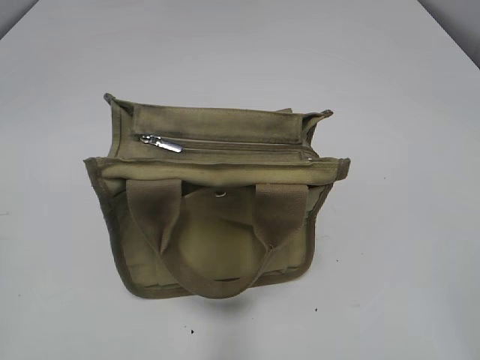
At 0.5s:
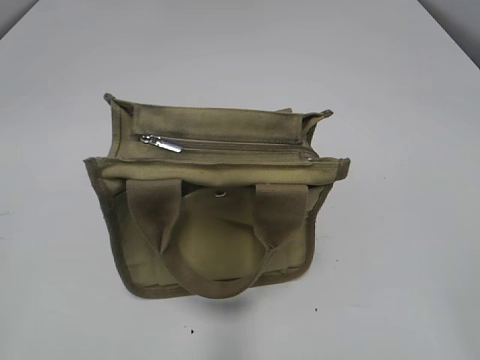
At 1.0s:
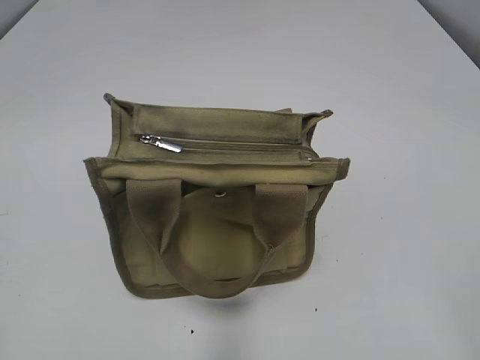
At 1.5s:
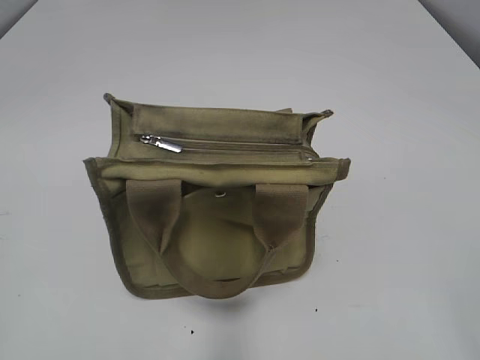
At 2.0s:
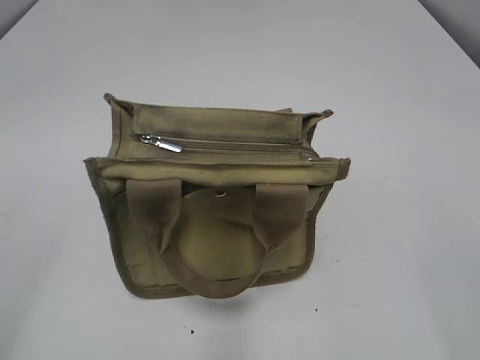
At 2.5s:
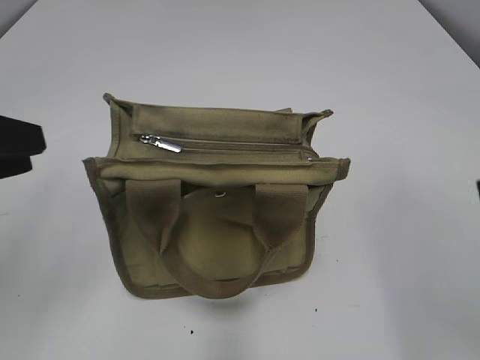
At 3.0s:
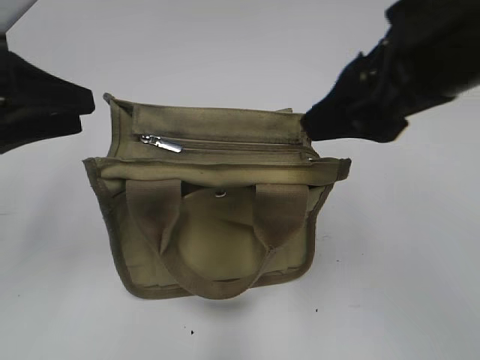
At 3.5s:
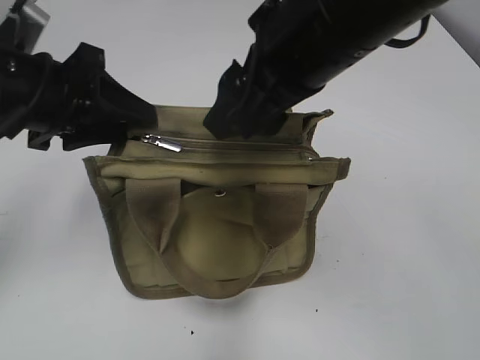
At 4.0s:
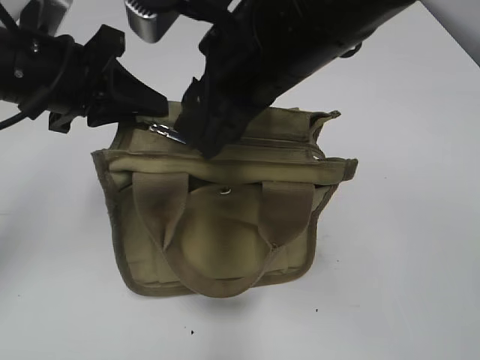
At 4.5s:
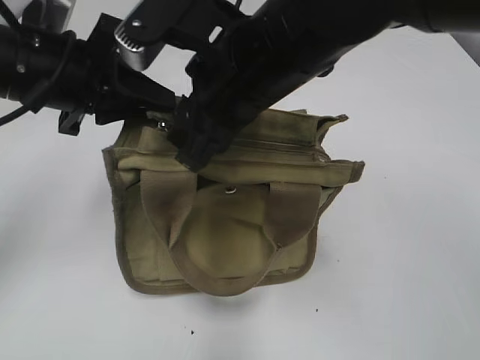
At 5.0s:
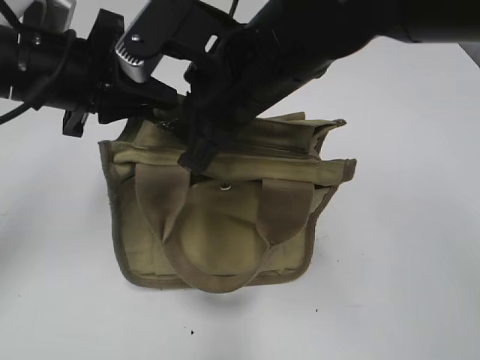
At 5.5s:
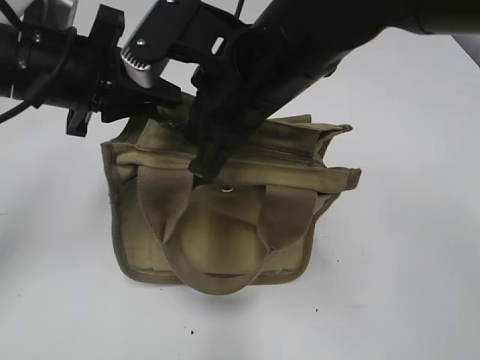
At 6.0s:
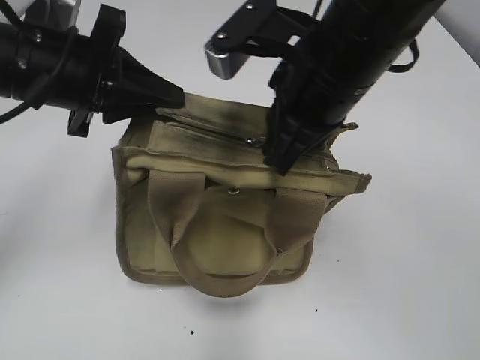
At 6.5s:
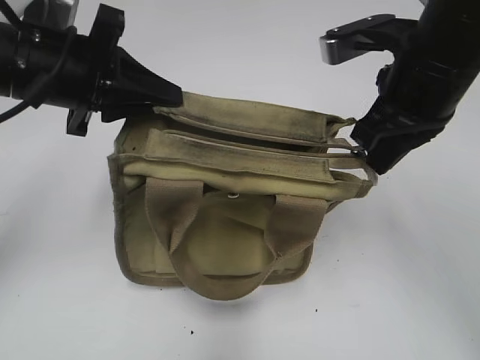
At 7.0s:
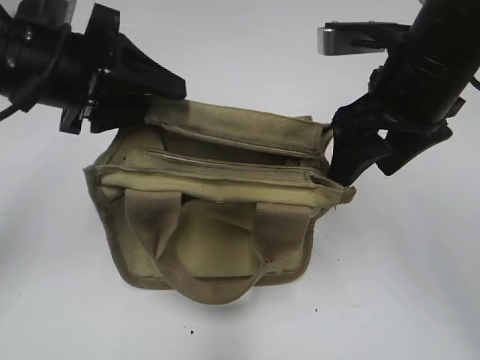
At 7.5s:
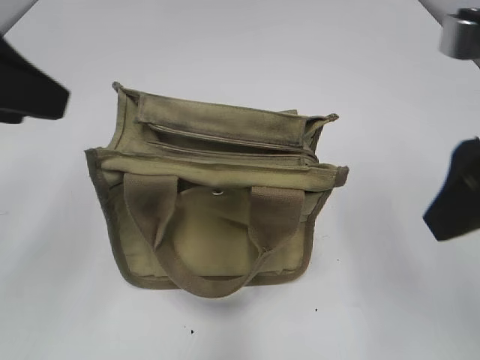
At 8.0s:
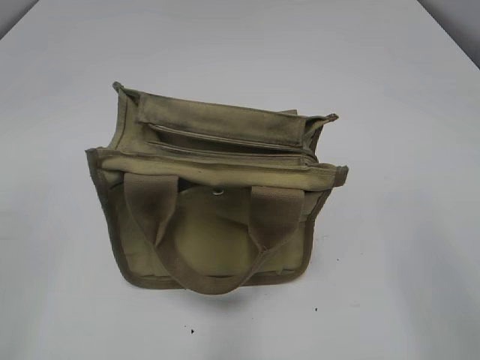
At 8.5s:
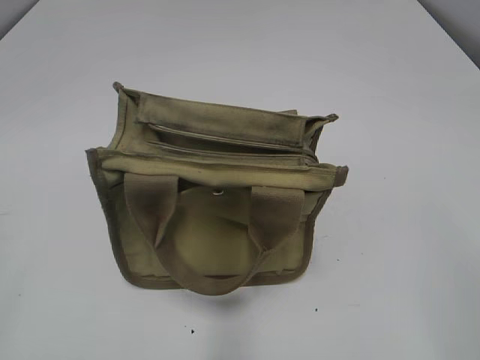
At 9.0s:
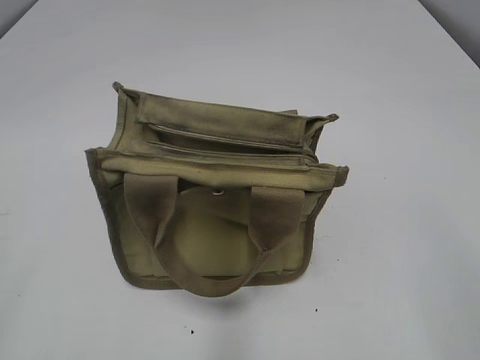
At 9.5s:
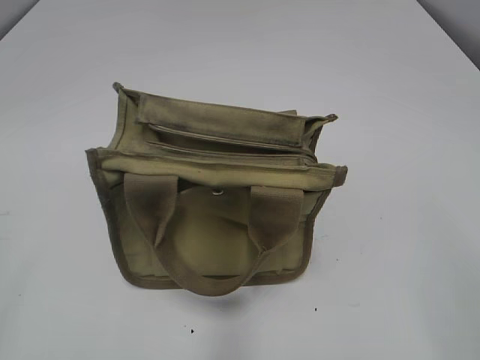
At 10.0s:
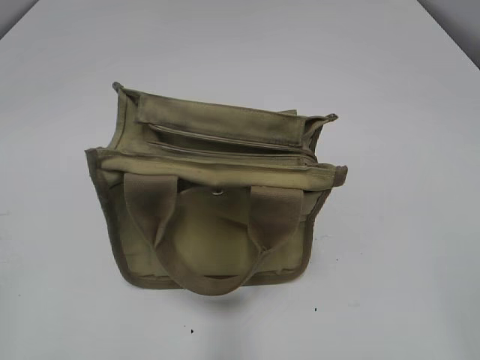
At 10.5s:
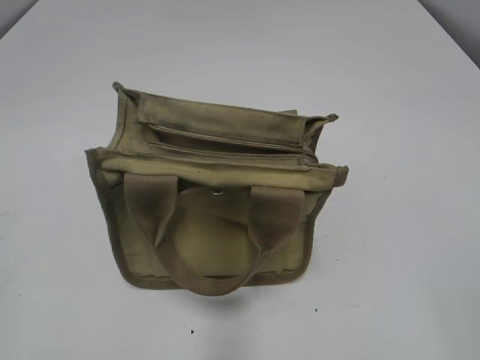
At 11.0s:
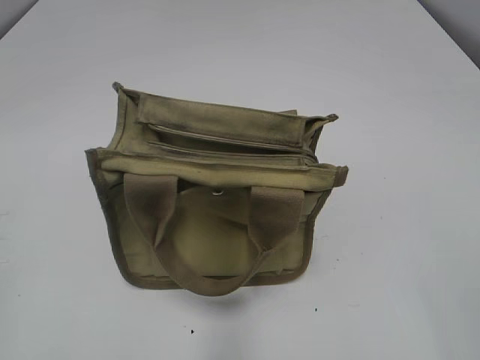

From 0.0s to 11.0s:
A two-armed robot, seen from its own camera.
Step, from 0.0s to 6.5s: Pull open the zipper with your right hand.
From 2.0s to 3.5s: The right gripper travels forward and to the left by roughly 30 cm. The left gripper travels forward and to the right by some 25 cm.
From 3.5s to 5.5s: The left gripper closes up, while the right gripper heads downward, covering approximately 5 cm, and closes its fingers.
From 5.5s to 7.5s: The right gripper is displaced to the right and backward by about 20 cm, and opens. The left gripper is displaced backward, upward and to the left by some 15 cm, and opens its fingers.
From 7.5s to 9.0s: The right gripper heads backward and to the right, covering approximately 20 cm; the left gripper is displaced backward and to the left by some 20 cm.

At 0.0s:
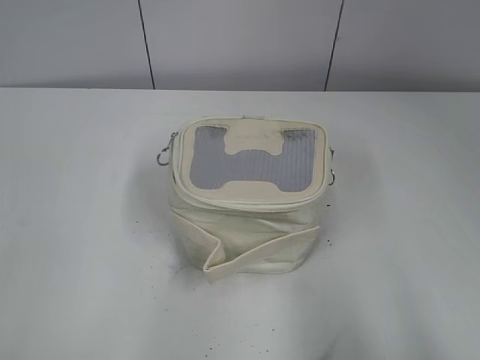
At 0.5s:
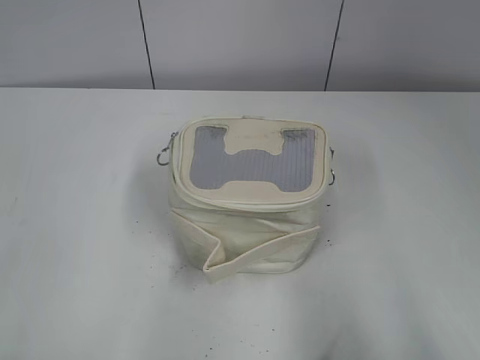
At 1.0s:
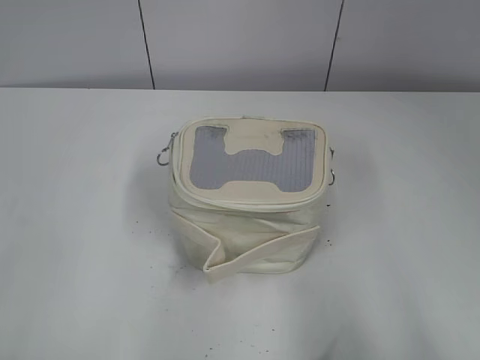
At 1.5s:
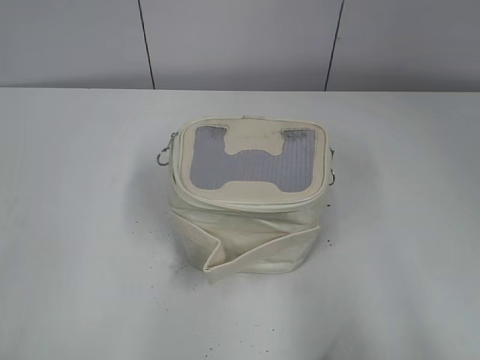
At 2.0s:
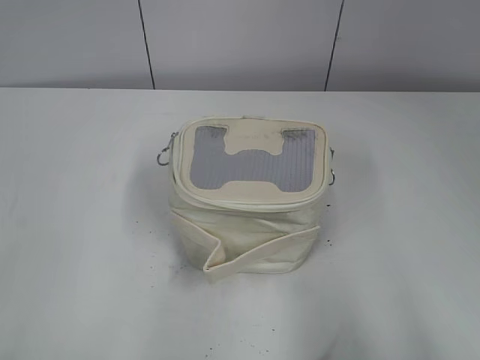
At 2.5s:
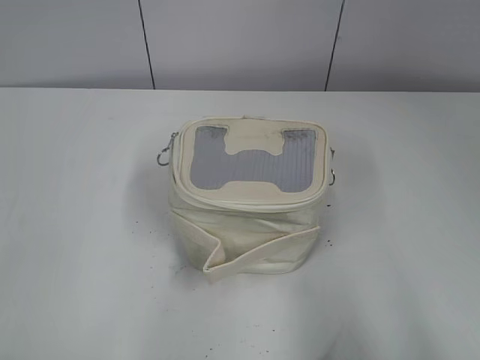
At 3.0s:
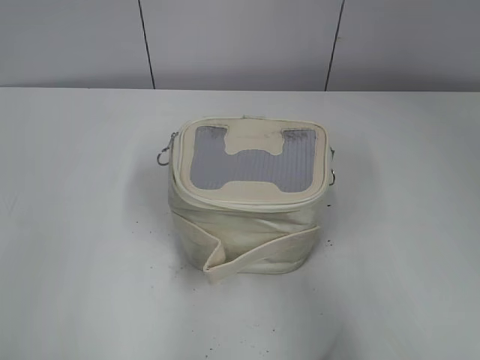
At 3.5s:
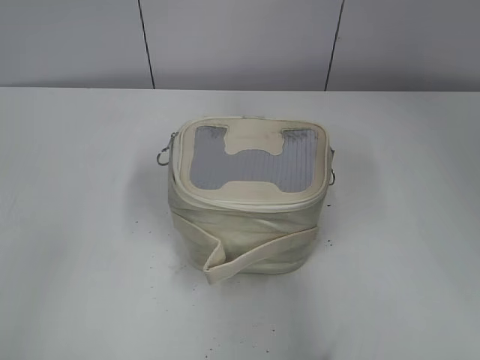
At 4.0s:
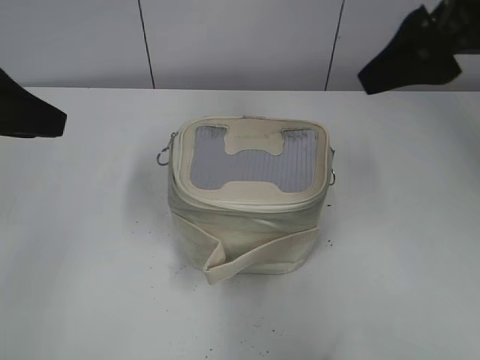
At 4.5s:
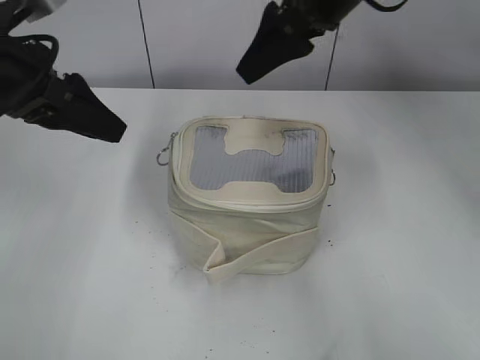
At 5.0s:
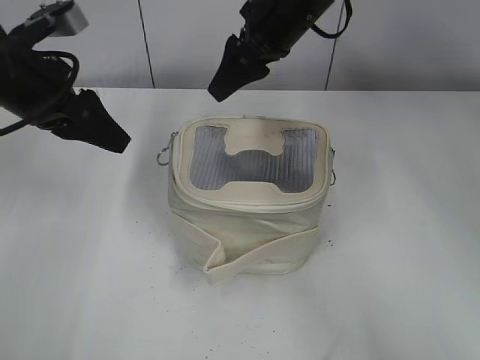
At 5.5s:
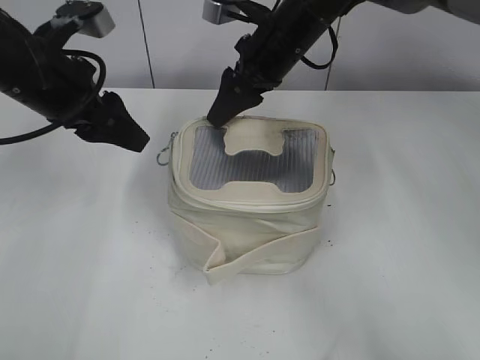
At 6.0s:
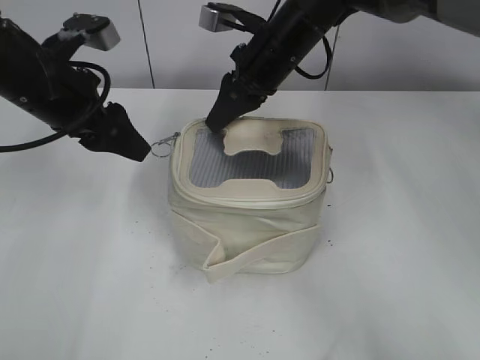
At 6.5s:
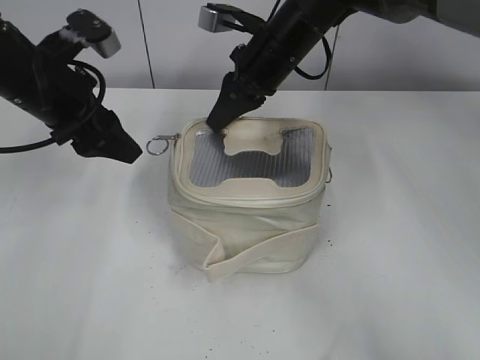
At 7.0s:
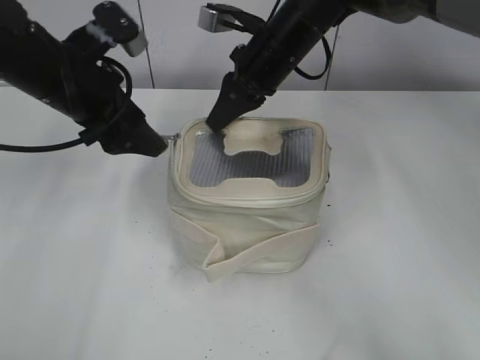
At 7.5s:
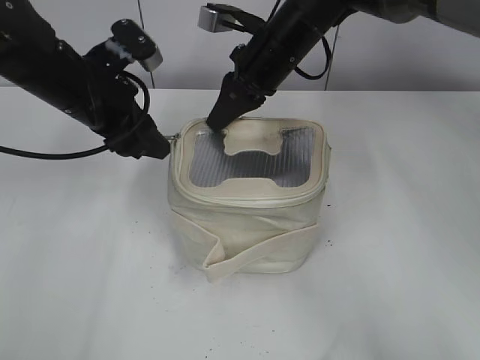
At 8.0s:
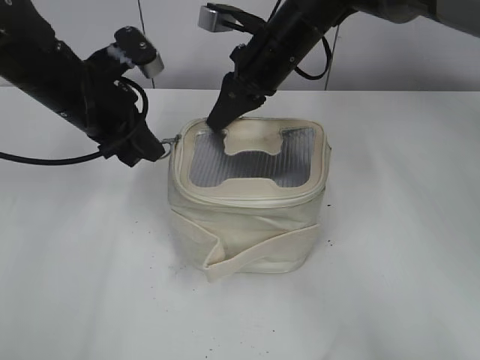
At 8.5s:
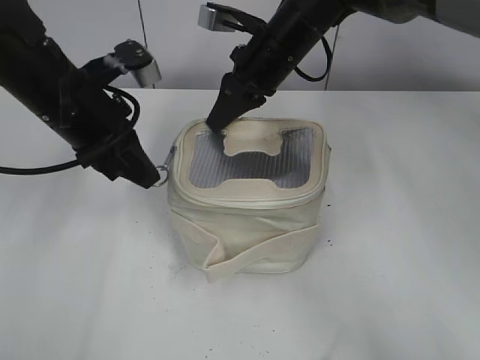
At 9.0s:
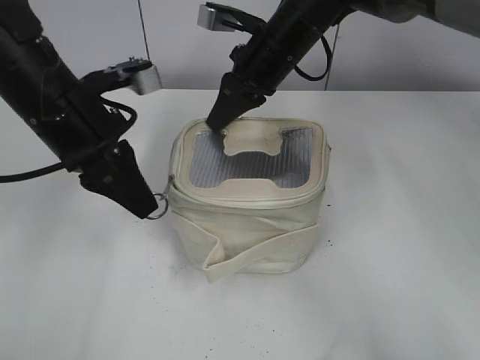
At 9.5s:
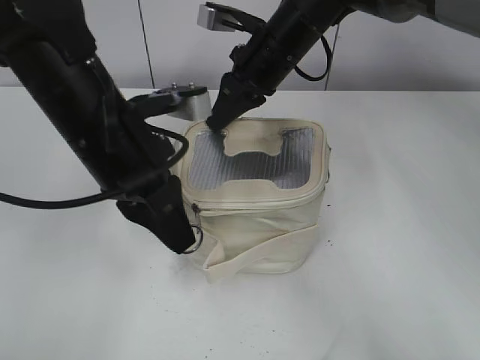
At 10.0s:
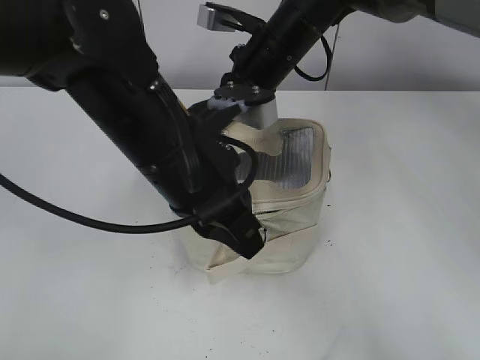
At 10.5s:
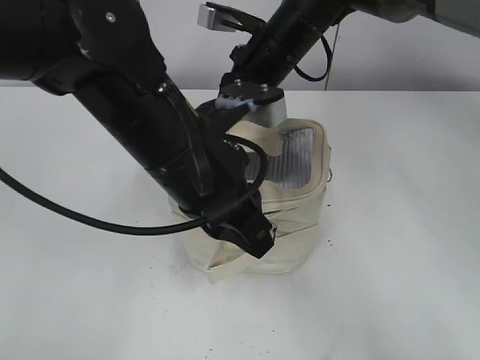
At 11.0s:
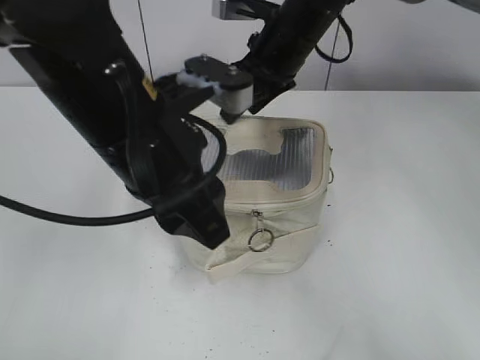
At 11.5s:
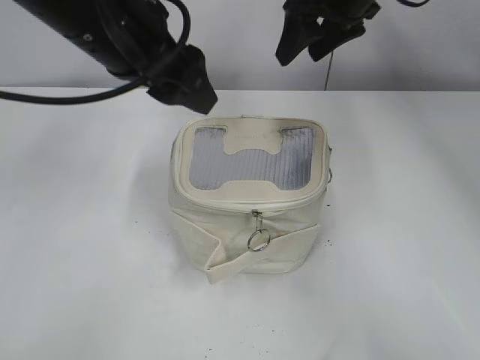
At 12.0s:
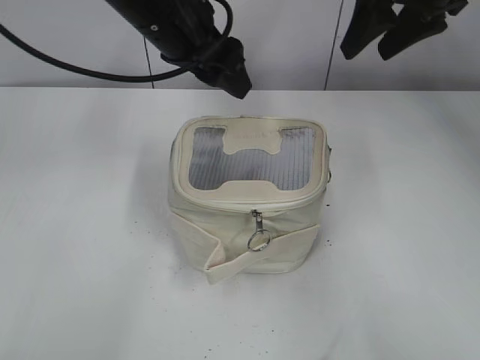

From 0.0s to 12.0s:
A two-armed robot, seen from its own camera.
Step, from 0.0s to 10.5s: Zip up the bag with your left hand.
From 2.0s to 4.0s: The left gripper heads forward, covering some 25 cm, while the right gripper travels forward and to the left by some 30 cm.
From 4.0s to 6.0s: The right gripper travels forward, to the left and downward by roughly 25 cm, and closes its fingers. Meanwhile the left gripper heads forward, to the right and downward, covering about 15 cm.
From 6.0s to 8.0s: The left gripper closes.
From 8.0s to 10.0s: The left gripper heads backward and to the right, covering roughly 15 cm.
From 10.0s to 12.0s: The left gripper travels forward and upward by about 15 cm, and opens up. Meanwhile the right gripper travels to the right and upward by about 20 cm, and opens.

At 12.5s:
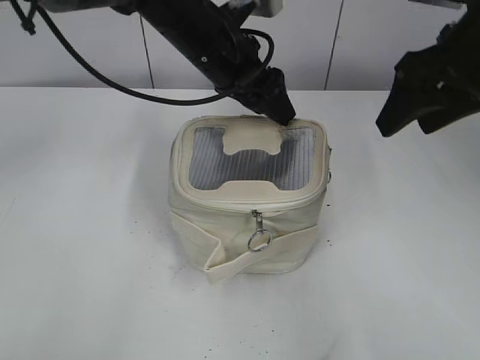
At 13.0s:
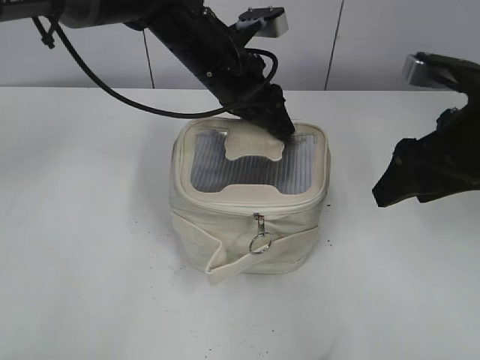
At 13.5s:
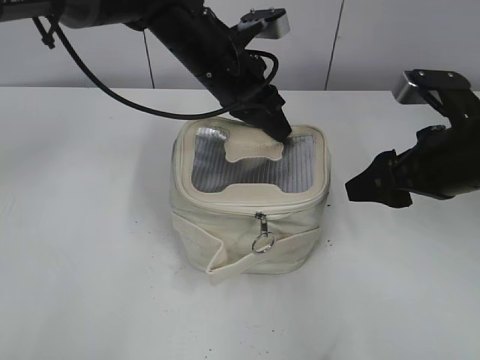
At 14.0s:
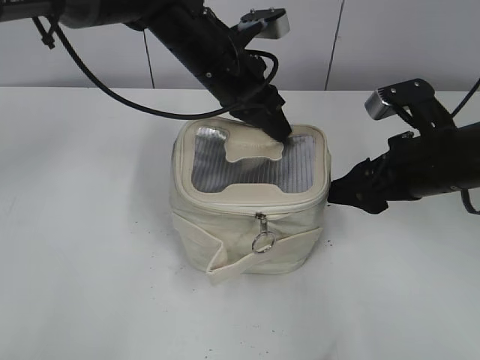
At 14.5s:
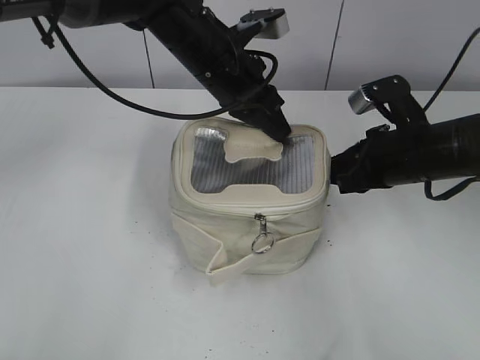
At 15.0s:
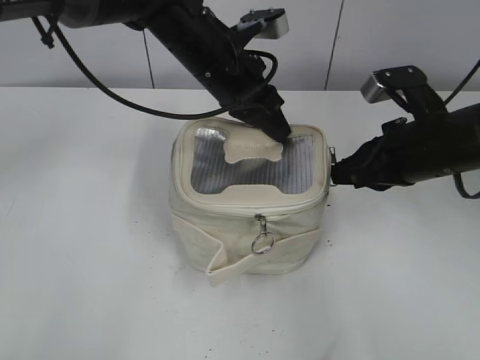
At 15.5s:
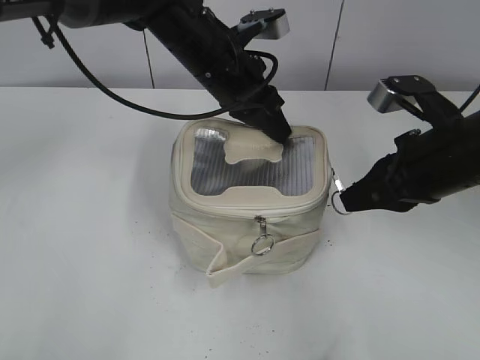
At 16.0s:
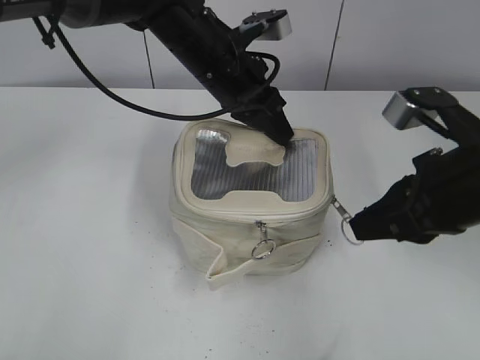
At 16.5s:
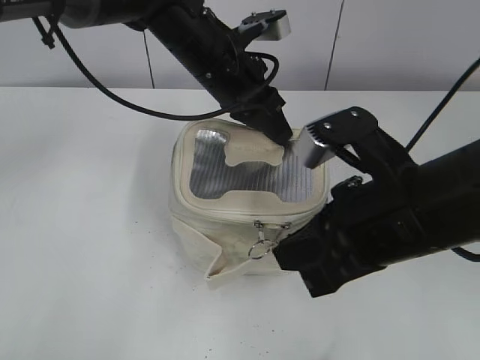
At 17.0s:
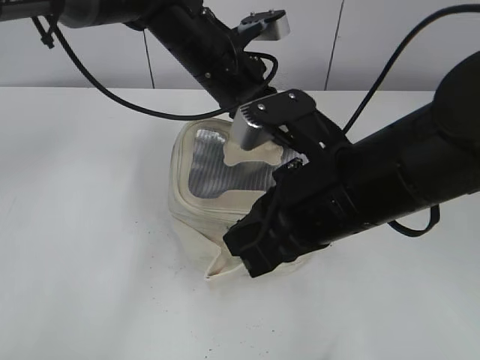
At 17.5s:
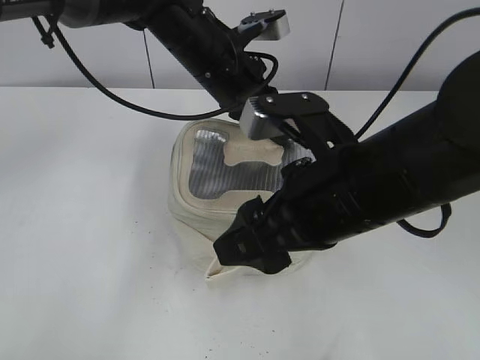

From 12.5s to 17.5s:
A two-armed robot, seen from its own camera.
Step, from 12.5s to 17.0s: Zip up the bag with your right hand.
From 12.5s to 15.0s: The left gripper closes up; the right gripper shifts roughly 10 cm downward, and closes its fingers.
From 15.0s to 17.5s: The right gripper goes approximately 15 cm to the left and backward, and opens up.
